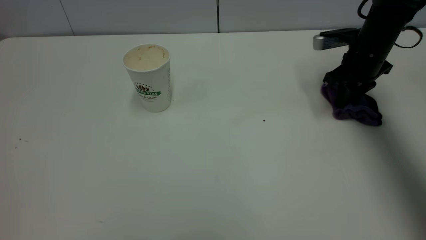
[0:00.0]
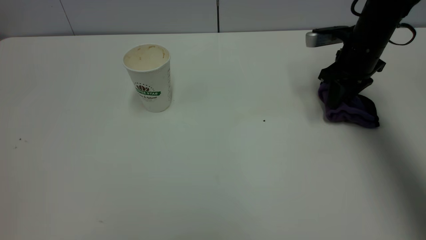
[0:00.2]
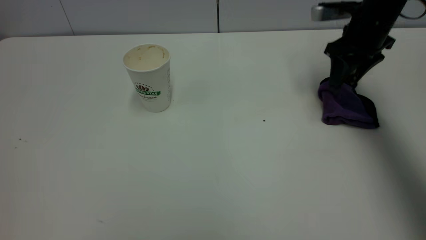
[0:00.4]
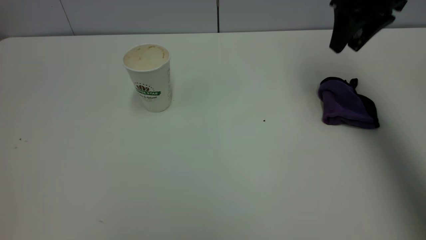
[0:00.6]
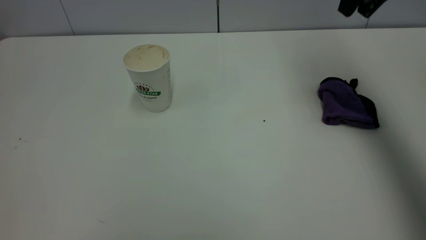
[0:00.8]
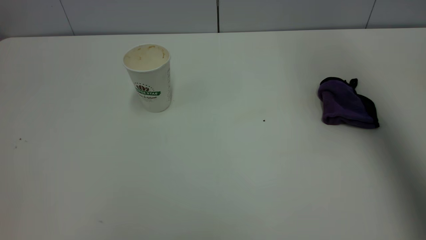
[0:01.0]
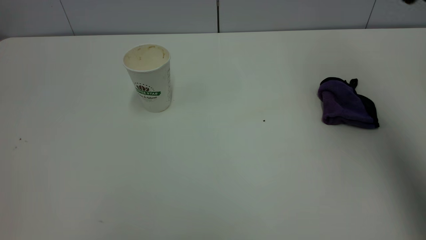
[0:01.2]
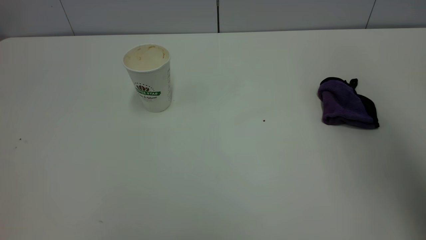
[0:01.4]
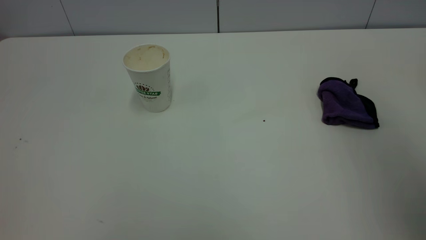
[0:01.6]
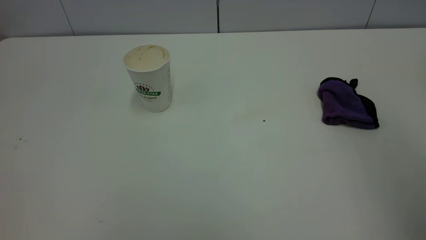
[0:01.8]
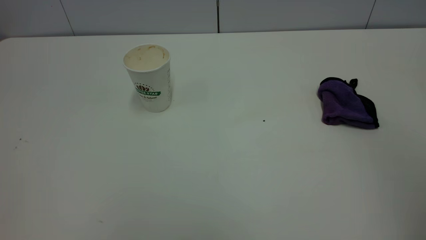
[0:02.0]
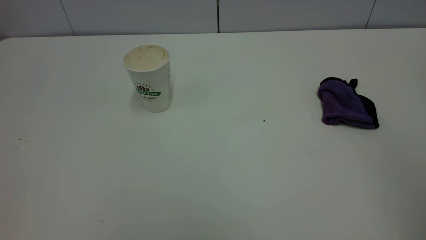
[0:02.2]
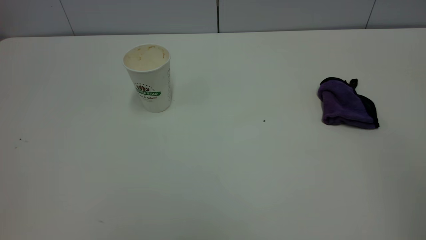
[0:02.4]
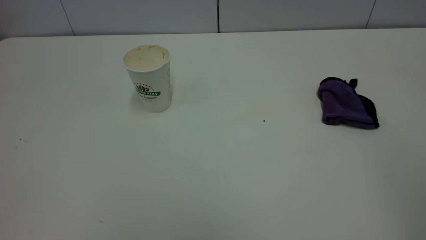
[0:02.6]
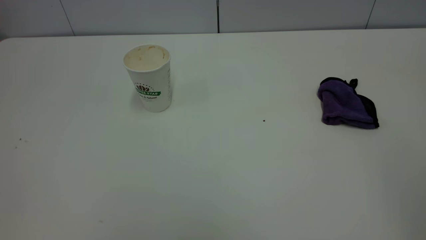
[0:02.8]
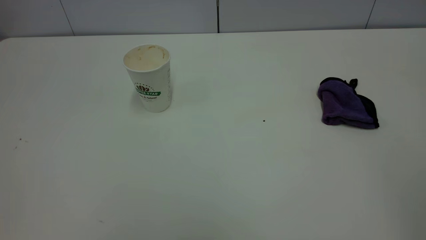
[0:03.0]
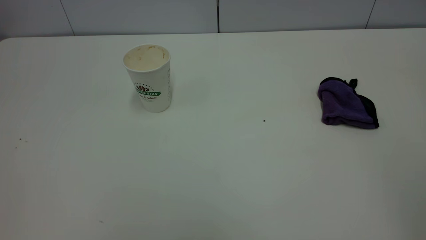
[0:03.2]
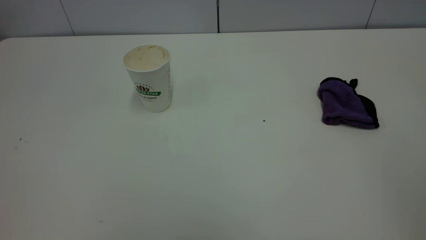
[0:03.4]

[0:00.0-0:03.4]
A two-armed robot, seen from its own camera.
Task of the whole recording: the left gripper pick up the fallen cup and place it upright, the right gripper grasp the purple rag and wipe the tea stain on the table, the right gripper put the purple rag back in its original position.
0:00.0 to 0:01.6: The right gripper moves backward and upward, some 40 cm, and opens its fingers.
